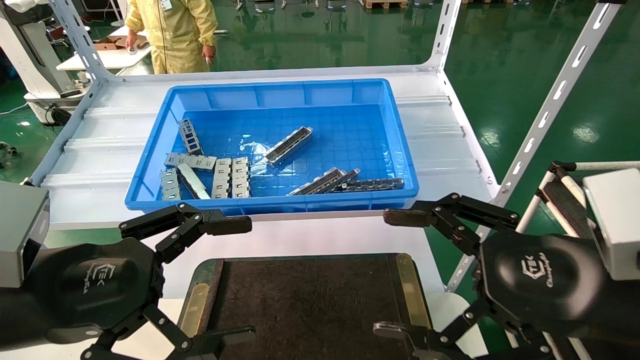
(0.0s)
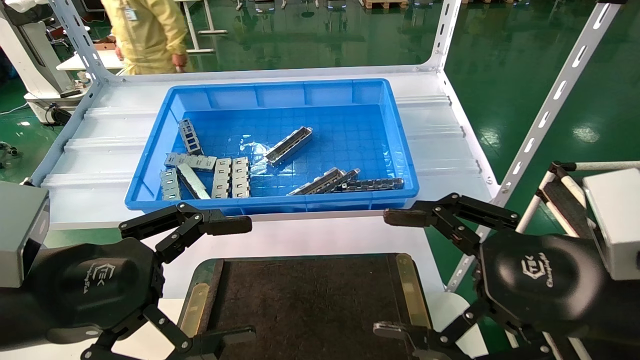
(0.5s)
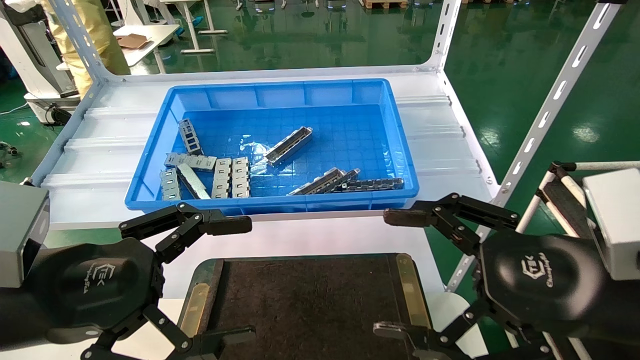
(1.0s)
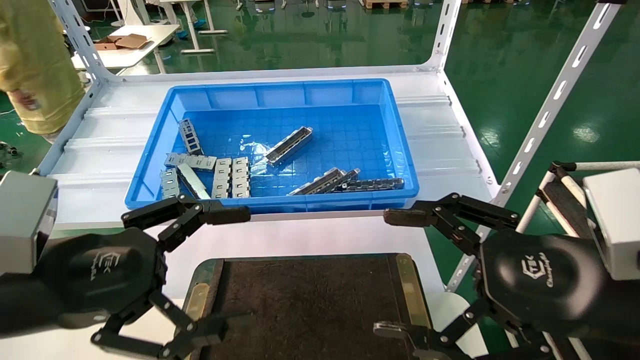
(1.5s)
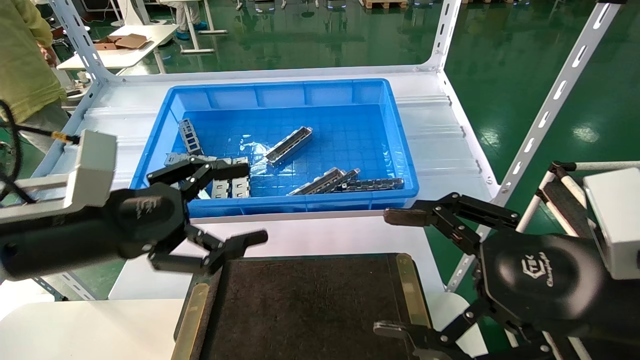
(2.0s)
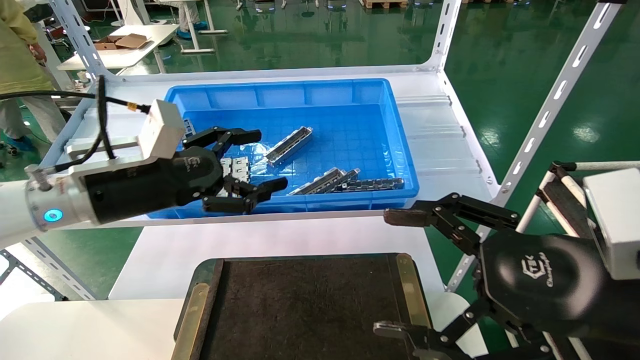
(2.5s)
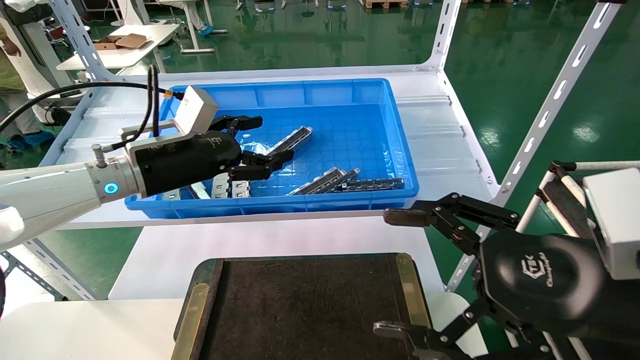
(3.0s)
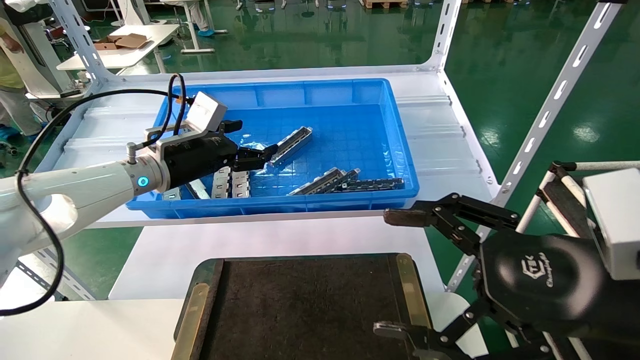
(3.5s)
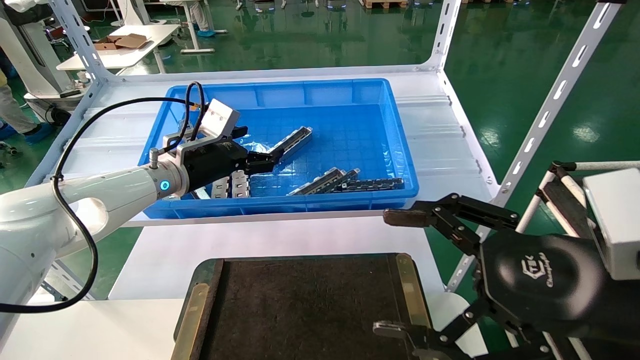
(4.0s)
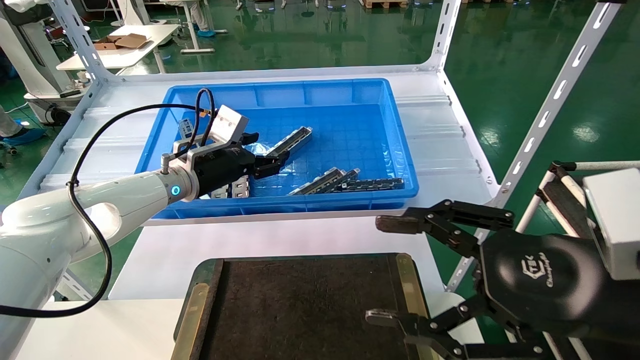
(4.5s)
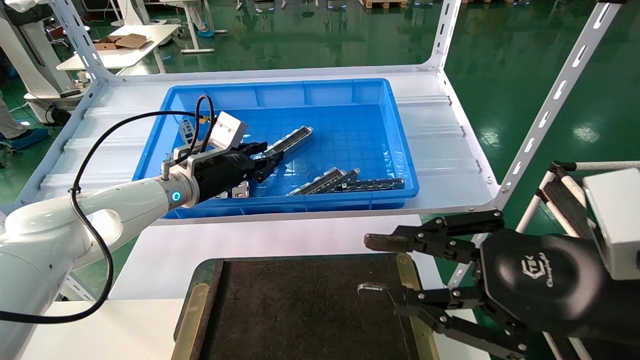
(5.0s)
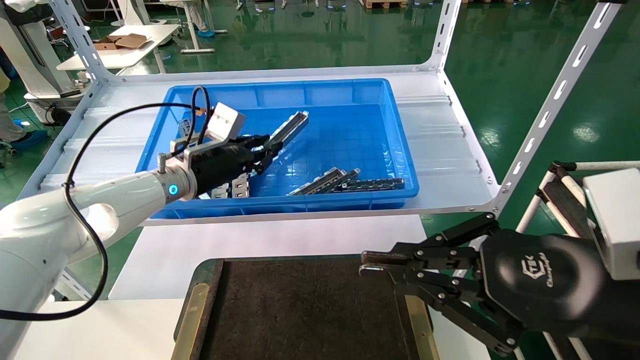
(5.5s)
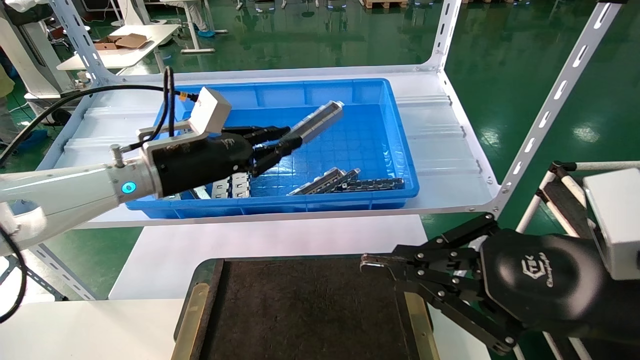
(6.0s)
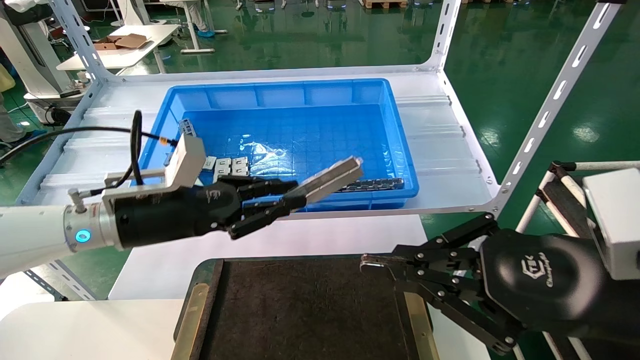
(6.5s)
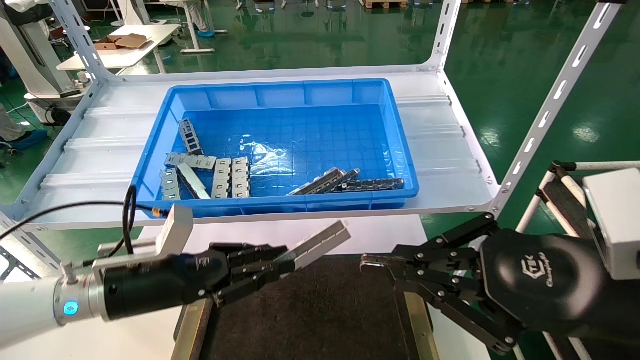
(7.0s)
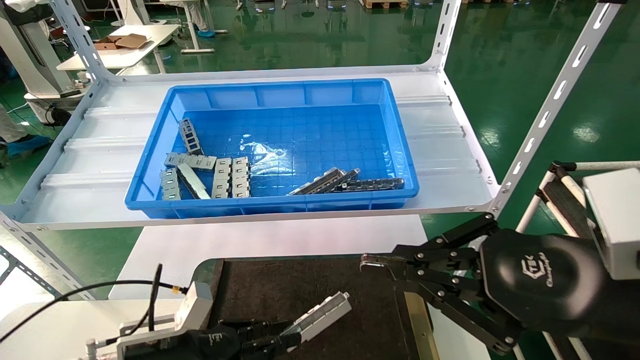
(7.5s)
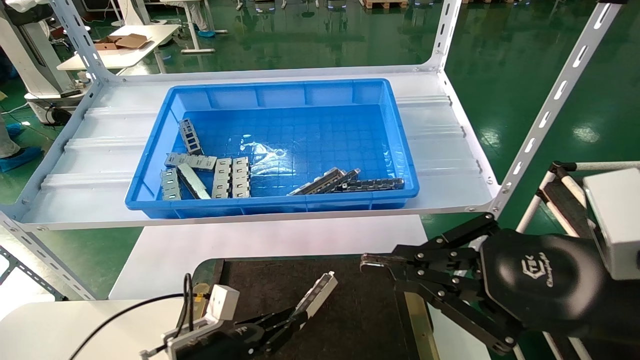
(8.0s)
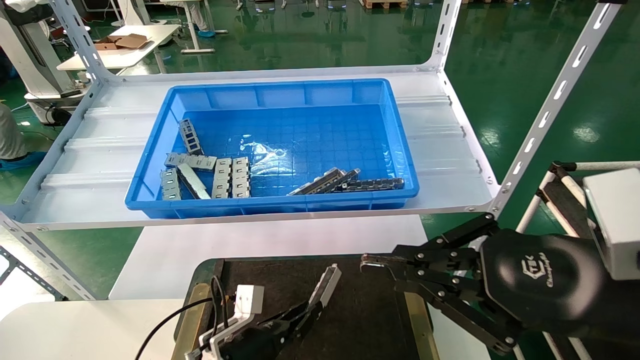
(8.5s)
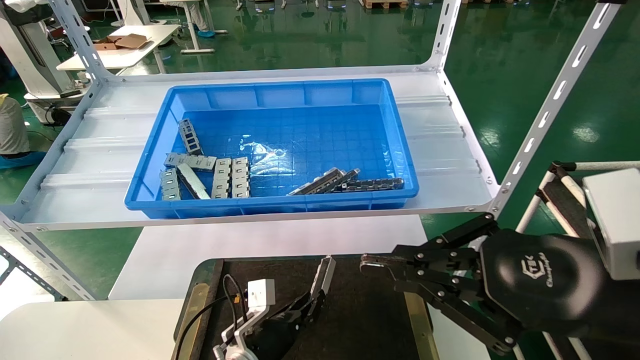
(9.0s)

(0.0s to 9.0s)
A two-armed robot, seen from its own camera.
Task of the whole recording: Grasp the part with one hand and place it on the black container.
Step, 2.0s - 5.5s: Pick up the front USB bracket from the feeding area.
0.0s - 2.0s: The left gripper shifts some 10 cm forward.
2.0s - 4.5s: The left gripper shifts about 20 cm forward.
4.5s - 7.0s: The right gripper closes up. The left gripper travels backward and downward by about 20 cm, and closes its fingers.
7.0s - 9.0s: The left gripper travels downward and to the right by roughly 25 cm.

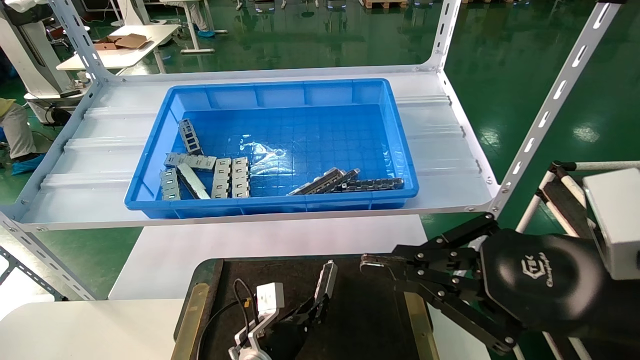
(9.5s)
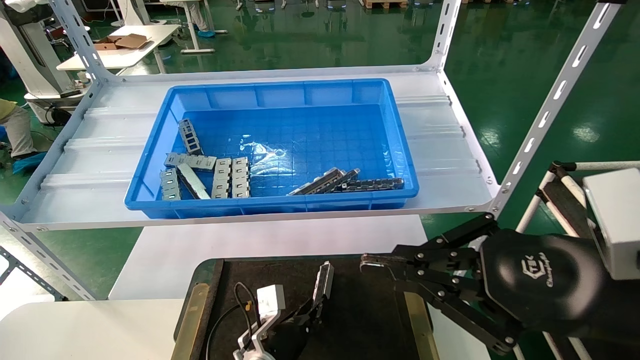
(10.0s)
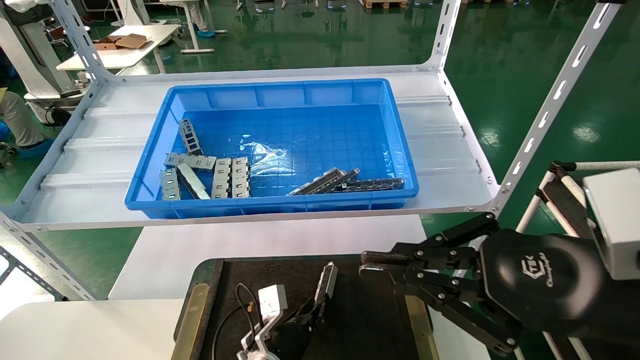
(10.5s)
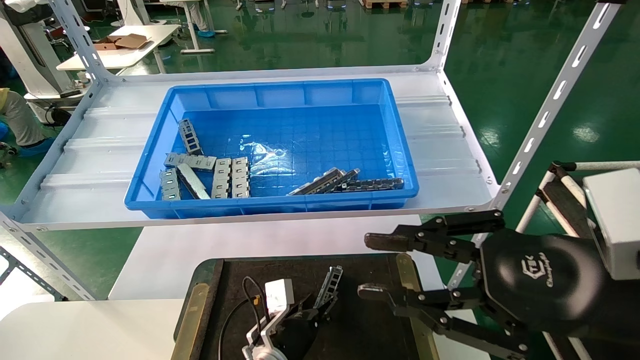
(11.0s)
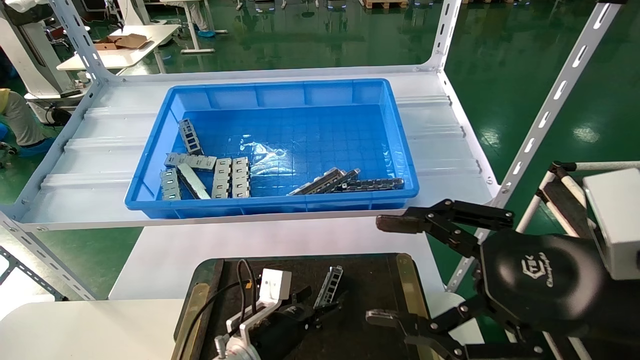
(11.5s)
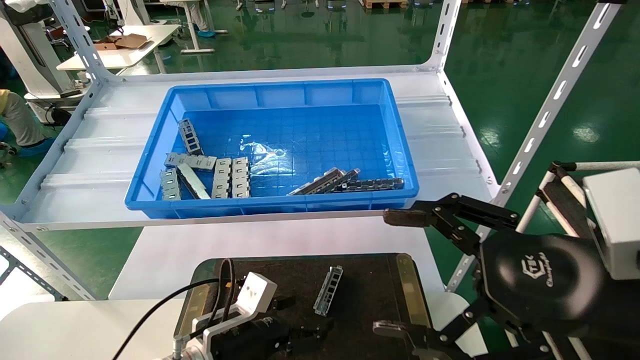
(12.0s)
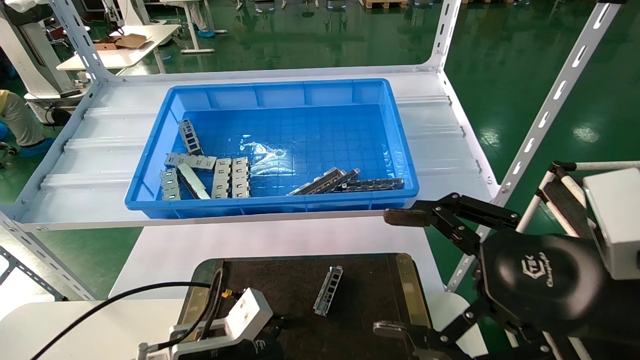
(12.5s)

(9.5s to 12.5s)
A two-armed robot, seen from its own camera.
Task of the whole recording: Grasp the part with one hand and place it on the black container.
9.5s - 11.0s: The left gripper opens.
11.0s - 12.5s: The right gripper opens its fingers, while the left gripper goes some 15 cm to the left, backward and upward, and opens up.
